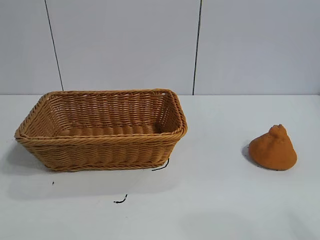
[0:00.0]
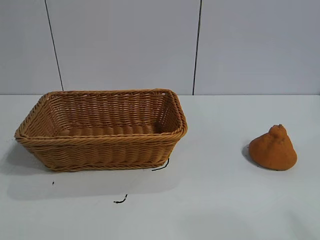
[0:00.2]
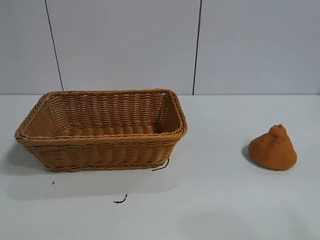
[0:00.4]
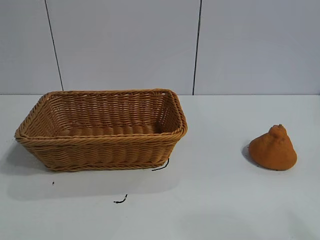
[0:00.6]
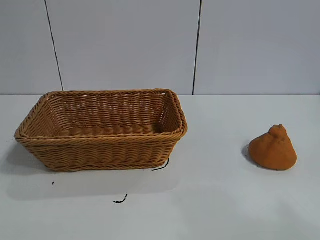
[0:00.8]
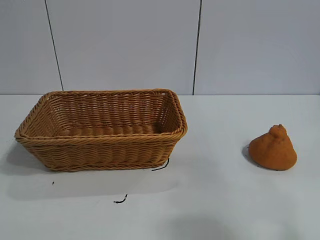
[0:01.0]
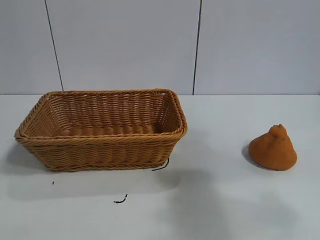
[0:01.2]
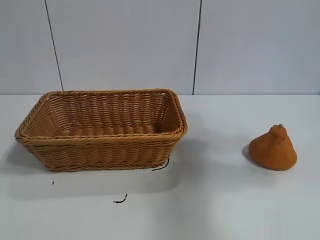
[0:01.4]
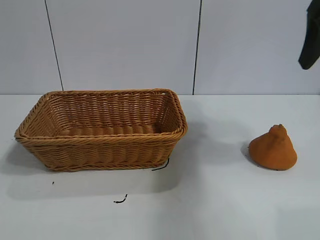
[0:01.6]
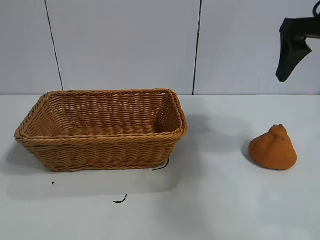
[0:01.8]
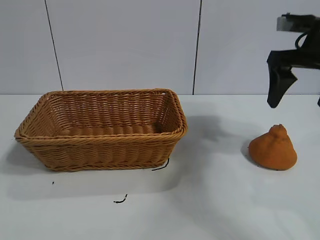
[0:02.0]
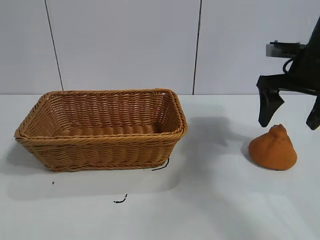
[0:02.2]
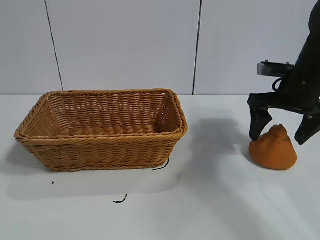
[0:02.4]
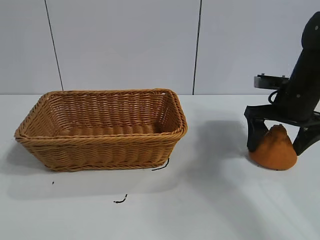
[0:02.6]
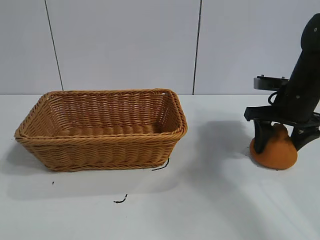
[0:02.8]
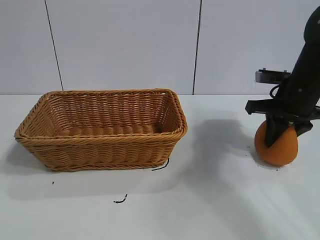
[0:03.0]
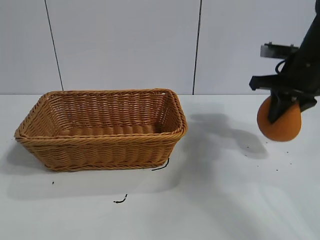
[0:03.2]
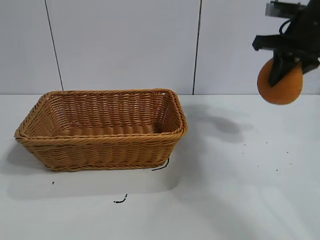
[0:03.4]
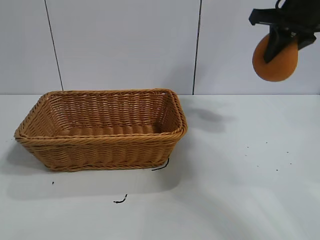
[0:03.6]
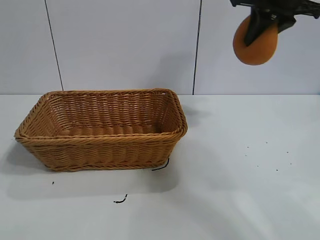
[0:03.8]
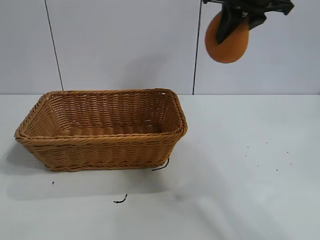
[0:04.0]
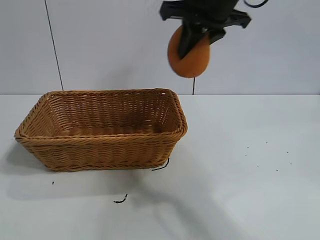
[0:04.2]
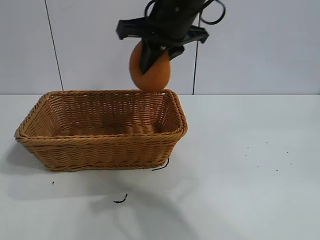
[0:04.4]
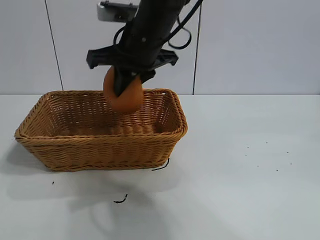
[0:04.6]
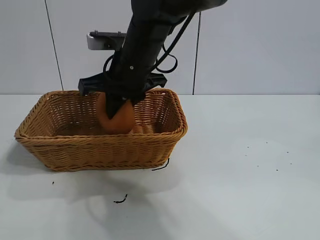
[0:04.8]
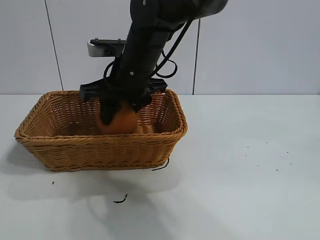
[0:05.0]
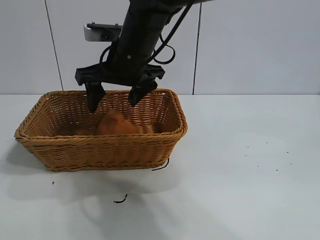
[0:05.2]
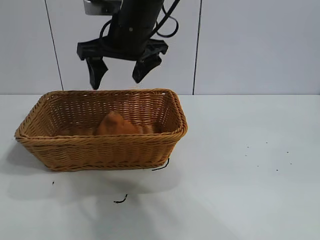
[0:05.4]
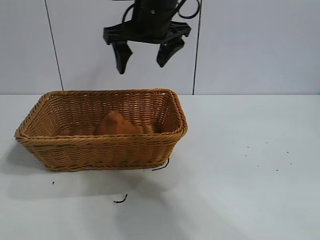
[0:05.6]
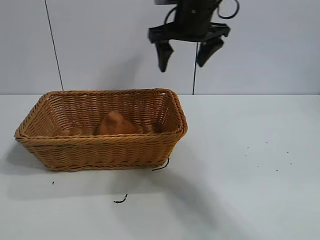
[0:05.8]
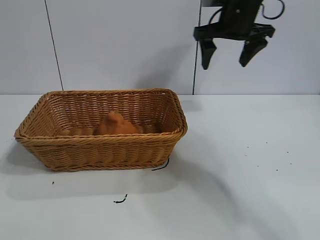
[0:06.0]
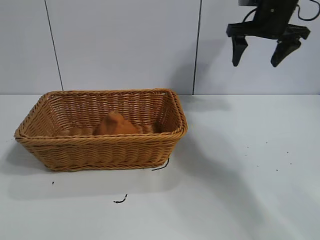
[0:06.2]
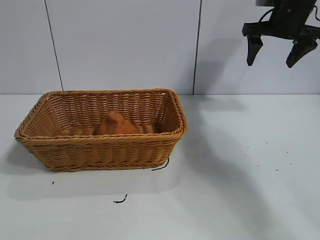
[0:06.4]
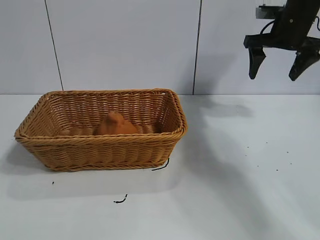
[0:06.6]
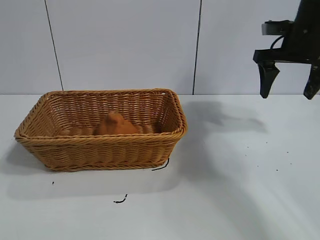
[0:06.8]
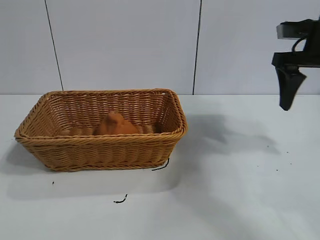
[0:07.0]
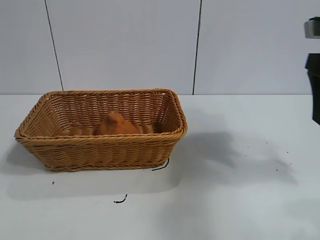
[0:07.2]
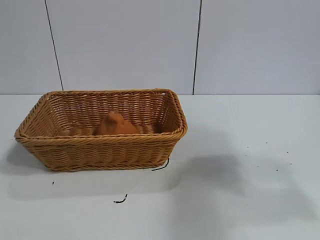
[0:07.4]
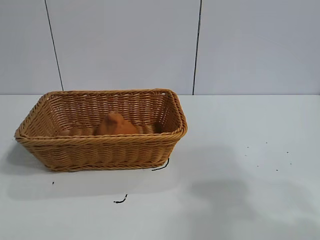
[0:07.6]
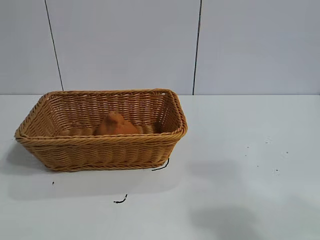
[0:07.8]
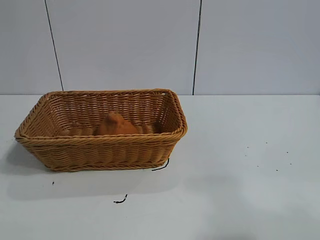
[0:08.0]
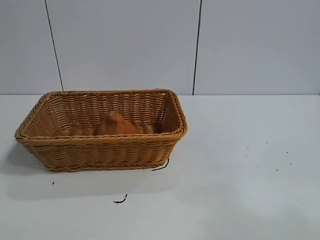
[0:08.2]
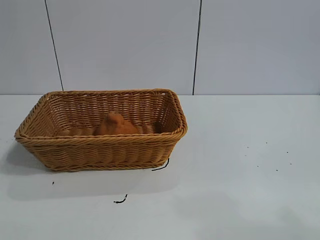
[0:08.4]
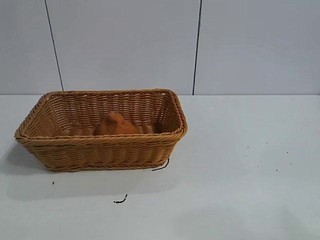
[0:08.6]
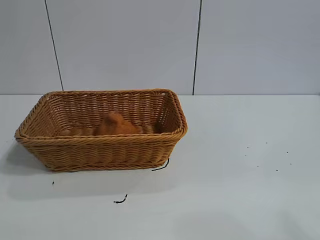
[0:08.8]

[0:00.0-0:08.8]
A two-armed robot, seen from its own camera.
Task of the whole recording: pick up the orange and put it into the basket.
Step, 0:00.8 to 0:03.0: Grasp the orange with right gripper.
Step, 0:03.2 to 0:05.0: Place the orange in the basket with right gripper.
